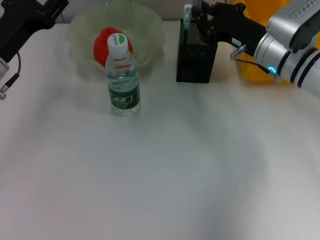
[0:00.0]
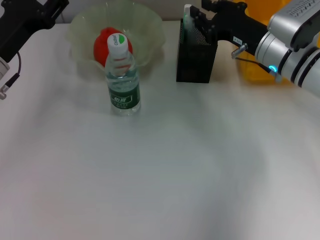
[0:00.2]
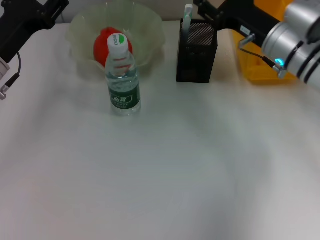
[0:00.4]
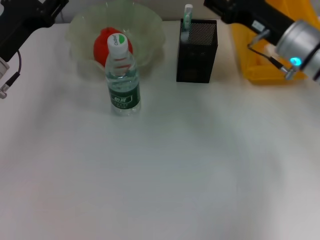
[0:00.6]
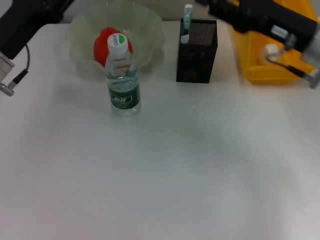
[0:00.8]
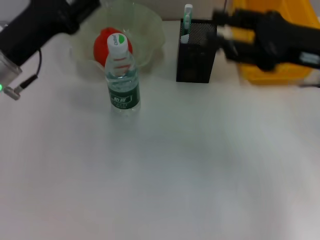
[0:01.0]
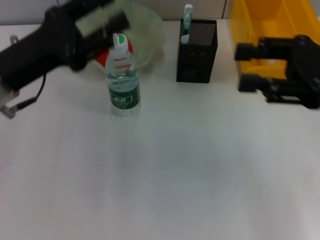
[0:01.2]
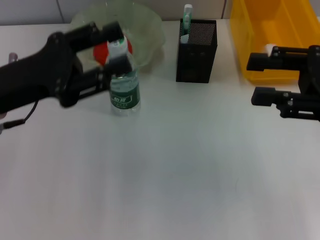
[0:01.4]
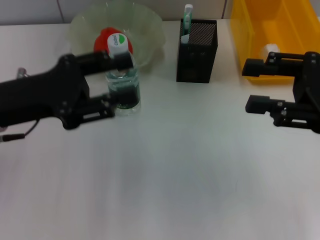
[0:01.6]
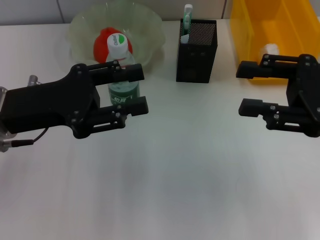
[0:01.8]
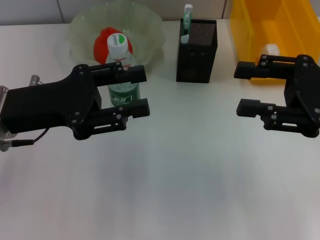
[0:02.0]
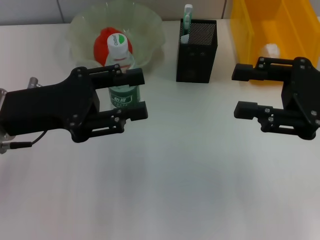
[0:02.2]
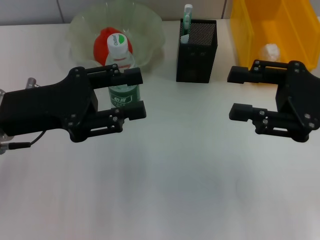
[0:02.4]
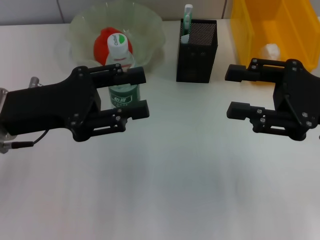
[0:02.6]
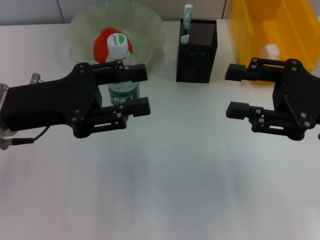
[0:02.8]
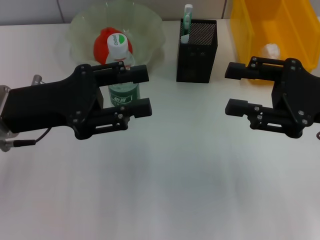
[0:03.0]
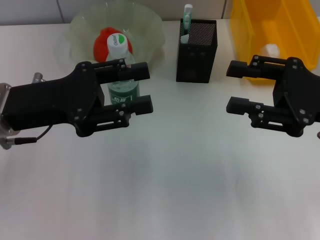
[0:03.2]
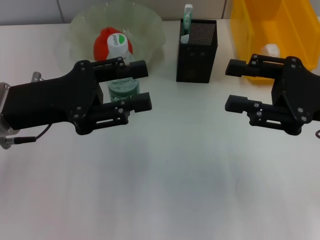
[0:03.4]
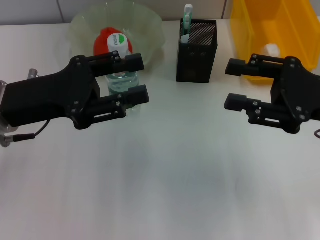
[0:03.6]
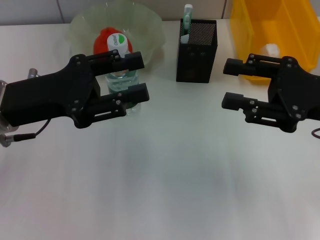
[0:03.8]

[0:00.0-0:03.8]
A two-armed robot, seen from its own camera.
0:00.0 to 0:01.2: The left gripper shifts by approximately 5 cm; the right gripper shifts some 15 cm backward, upward and to the right, and opens.
0:02.6 to 0:03.8: Neither gripper changes place.

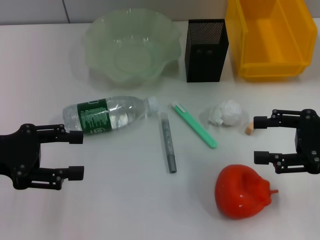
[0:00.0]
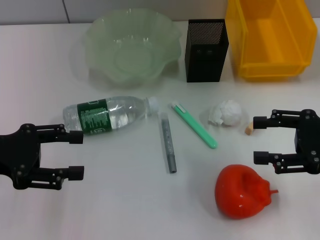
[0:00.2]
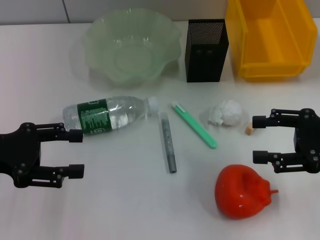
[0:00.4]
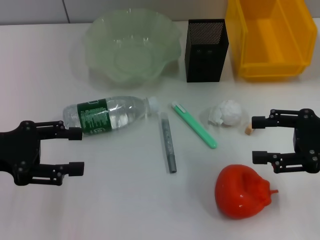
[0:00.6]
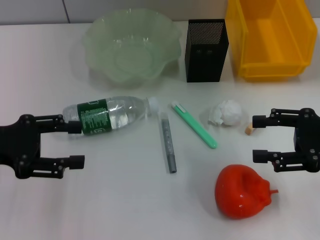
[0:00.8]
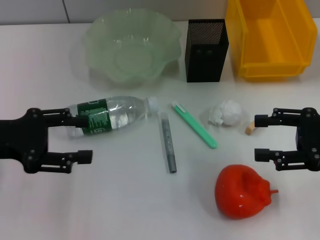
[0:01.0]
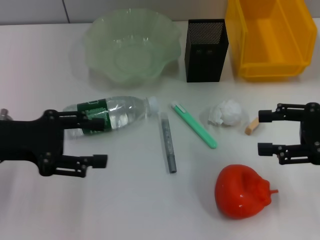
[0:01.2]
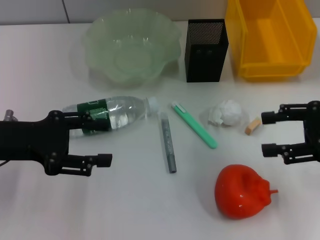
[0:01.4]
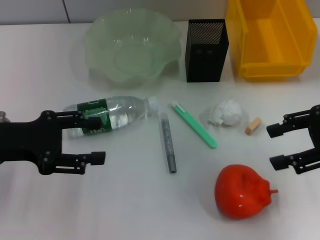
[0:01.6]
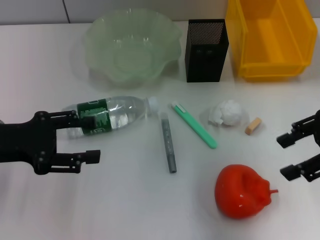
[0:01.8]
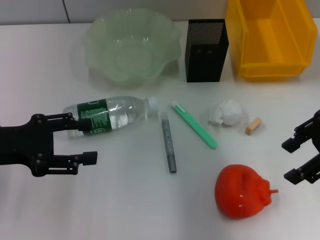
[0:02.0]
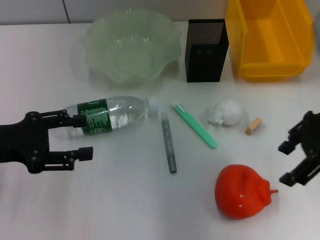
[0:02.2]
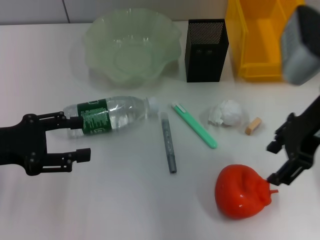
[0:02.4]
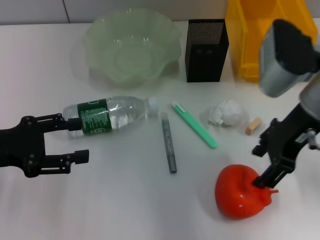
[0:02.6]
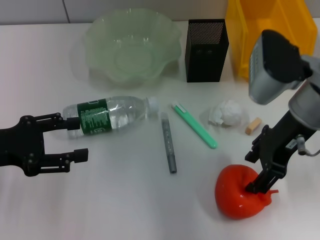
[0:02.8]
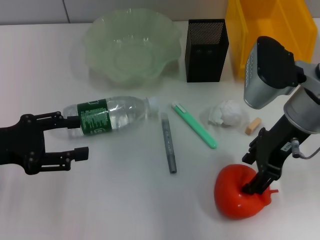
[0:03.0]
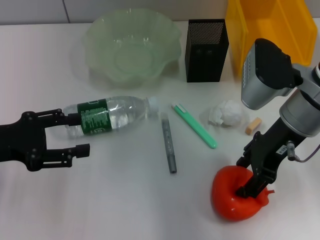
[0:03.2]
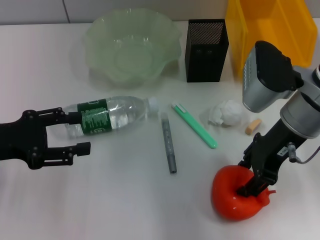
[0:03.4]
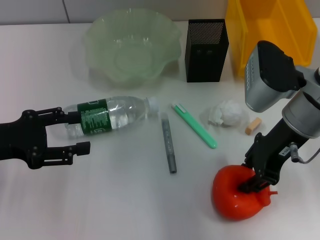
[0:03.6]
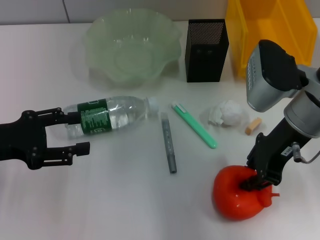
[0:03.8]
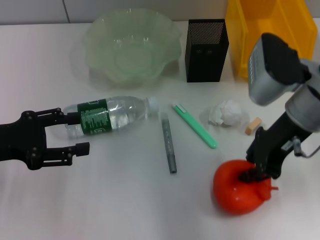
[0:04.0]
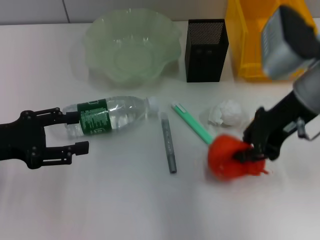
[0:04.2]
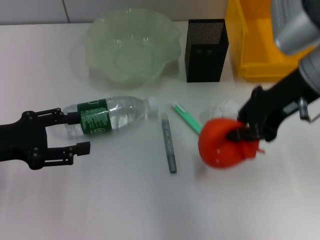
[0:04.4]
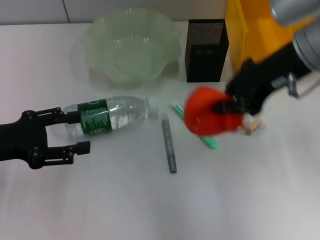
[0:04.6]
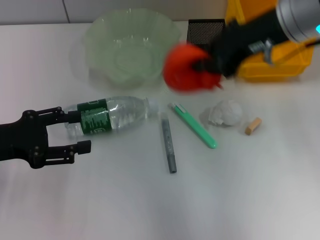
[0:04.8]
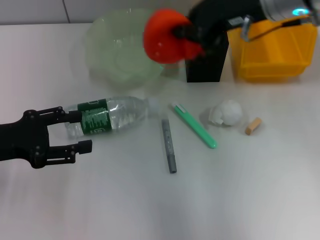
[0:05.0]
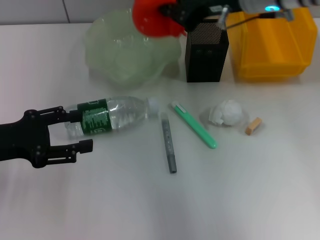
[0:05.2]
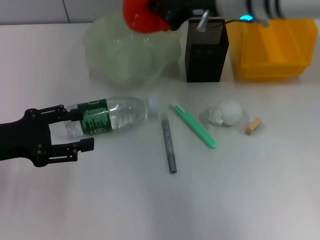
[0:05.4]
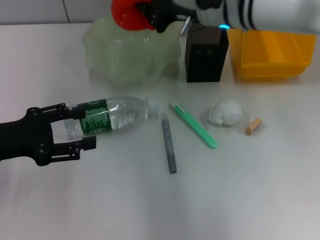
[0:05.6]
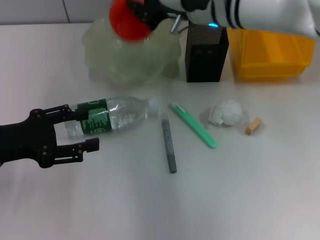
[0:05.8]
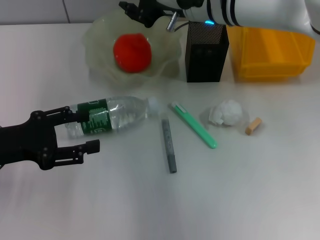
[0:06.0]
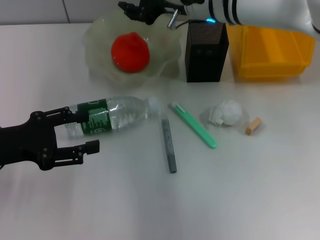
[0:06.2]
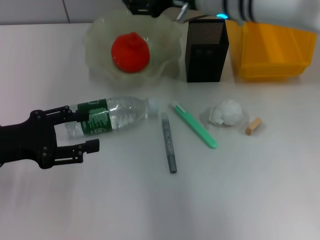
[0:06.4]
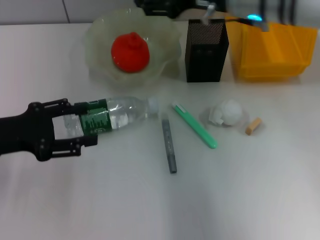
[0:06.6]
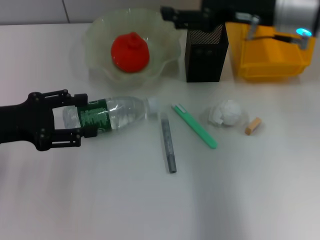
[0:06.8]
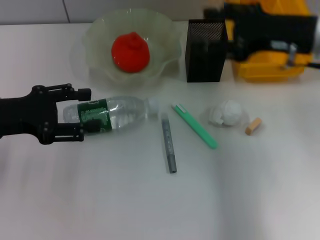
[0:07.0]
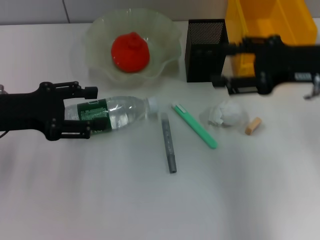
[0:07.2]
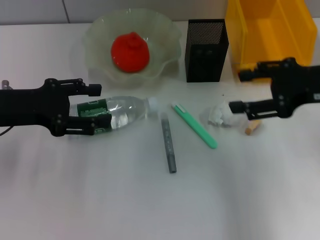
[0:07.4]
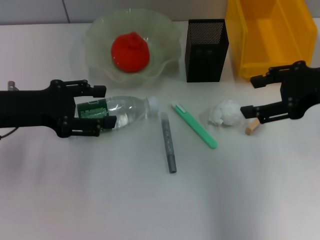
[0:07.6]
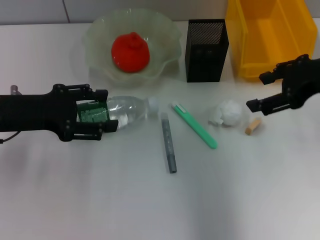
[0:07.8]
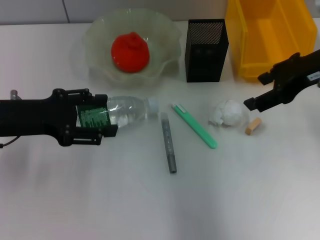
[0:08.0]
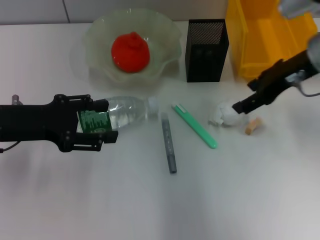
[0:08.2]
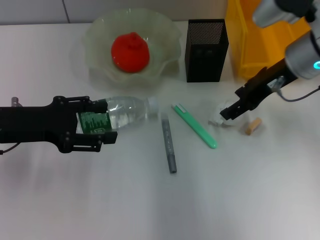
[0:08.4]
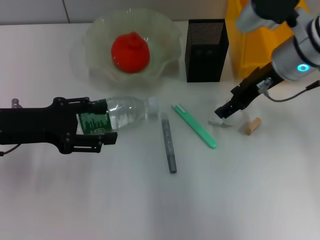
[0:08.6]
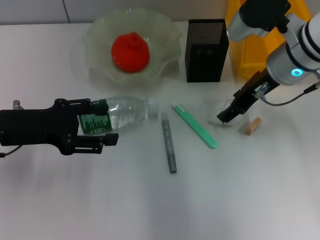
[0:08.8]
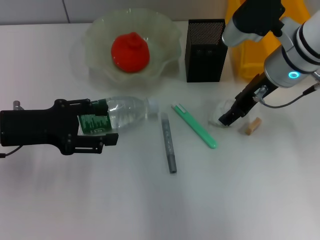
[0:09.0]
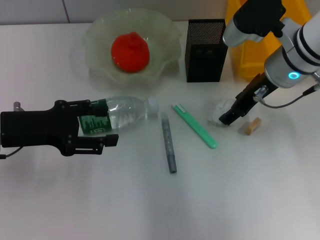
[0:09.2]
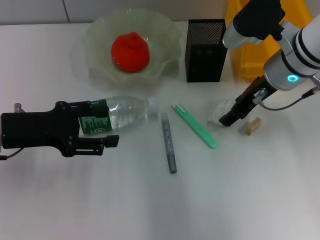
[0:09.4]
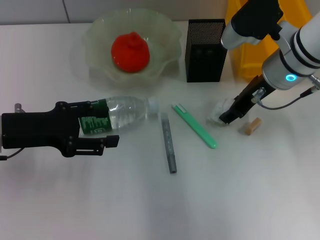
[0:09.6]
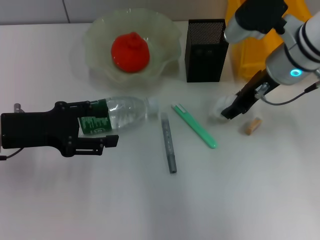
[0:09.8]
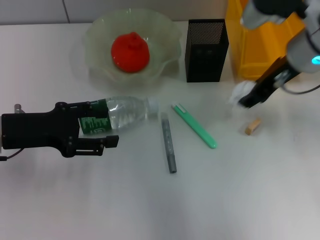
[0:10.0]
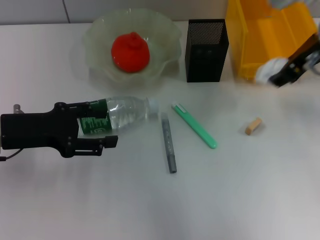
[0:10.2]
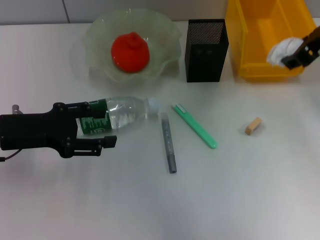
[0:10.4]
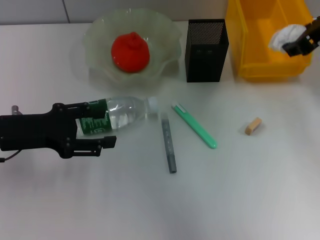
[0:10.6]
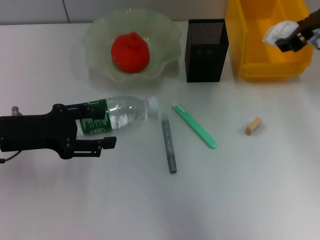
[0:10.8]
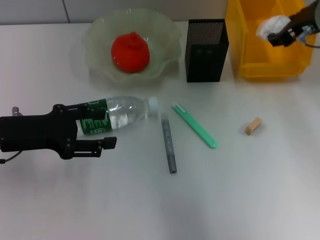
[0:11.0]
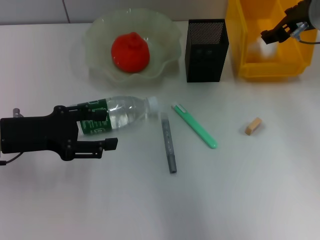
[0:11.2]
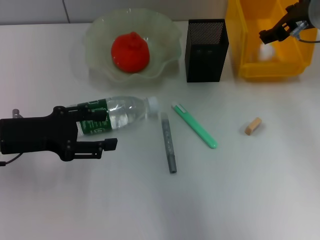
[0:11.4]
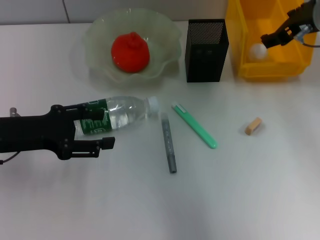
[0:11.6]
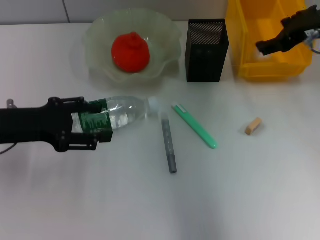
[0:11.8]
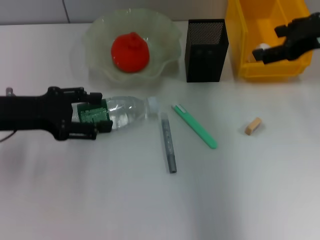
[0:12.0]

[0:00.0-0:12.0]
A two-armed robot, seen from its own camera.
Step, 0:00.0 to 0:03.8: Grab the orange with the right hand.
Step, 0:04.0 to 0:06.2: Place the orange into the fruit bowl with the right hand.
Step, 0:06.6 to 0:09.2: Grab the paper ball with the right hand.
Step, 0:09.6 to 0:11.6: Place the paper ball into the trash can with the right hand.
0:00.0 to 0:01.6: The right gripper travels upward by about 5 cm.
0:01.6 to 0:03.0: The right gripper travels to the left by approximately 15 cm.
0:03.0 to 0:04.4: The right gripper is displaced upward by approximately 5 cm, and closes its fingers.
0:04.4 to 0:06.0: The right gripper heads to the left and forward, covering about 15 cm.
0:06.0 to 0:07.6: The left gripper moves some 5 cm. Meanwhile the right gripper travels to the right and backward by about 25 cm, and opens its fingers.
0:07.6 to 0:09.0: The right gripper moves to the left and forward, some 15 cm.
0:09.0 to 0:10.4: The right gripper travels upward by roughly 10 cm.
0:10.4 to 0:12.0: The right gripper changes place by about 5 cm, and opens its fingers.

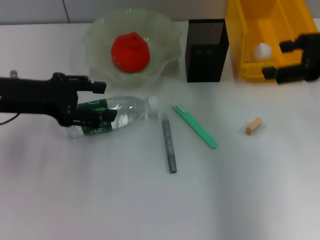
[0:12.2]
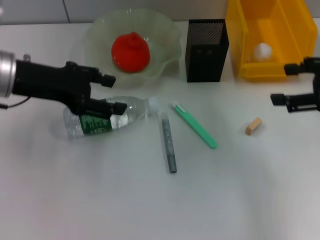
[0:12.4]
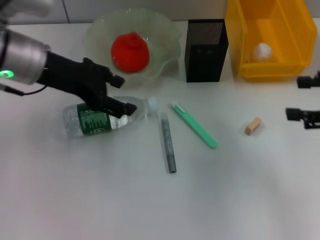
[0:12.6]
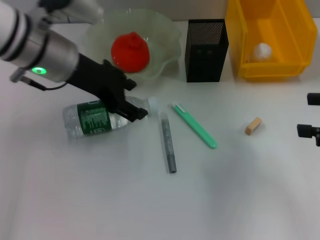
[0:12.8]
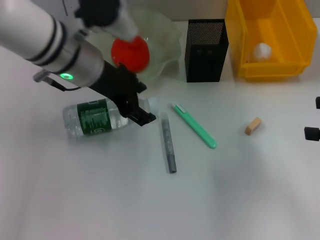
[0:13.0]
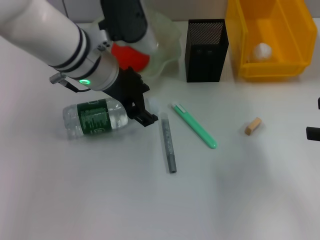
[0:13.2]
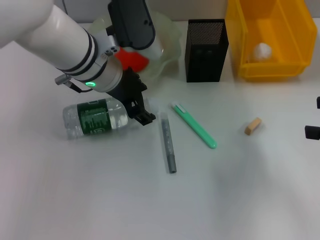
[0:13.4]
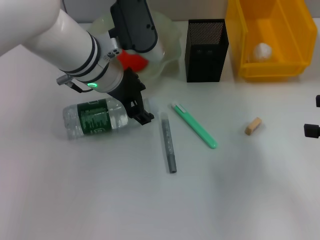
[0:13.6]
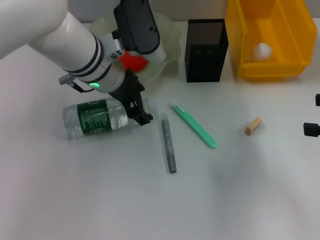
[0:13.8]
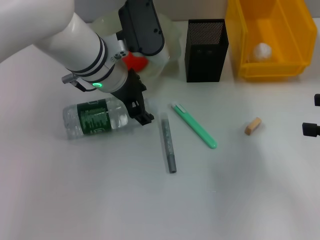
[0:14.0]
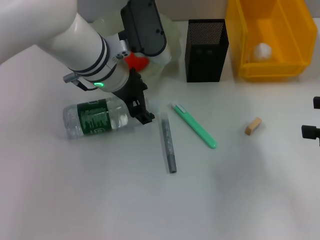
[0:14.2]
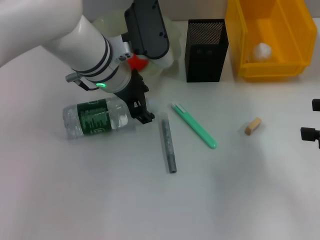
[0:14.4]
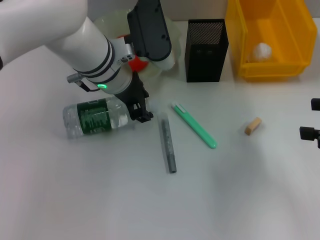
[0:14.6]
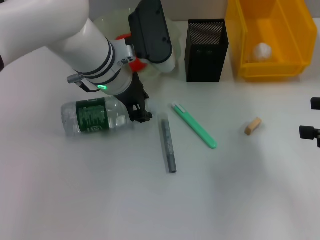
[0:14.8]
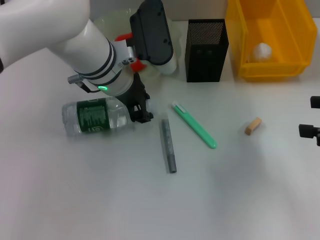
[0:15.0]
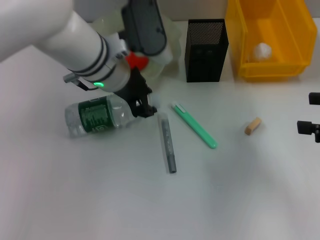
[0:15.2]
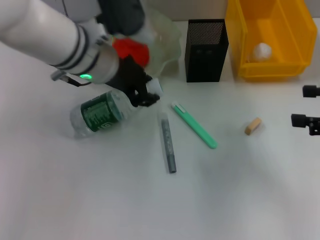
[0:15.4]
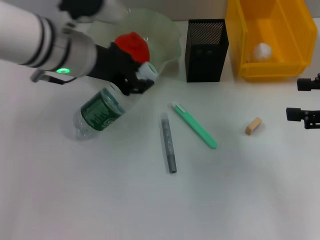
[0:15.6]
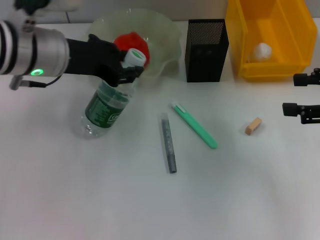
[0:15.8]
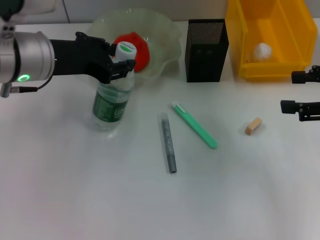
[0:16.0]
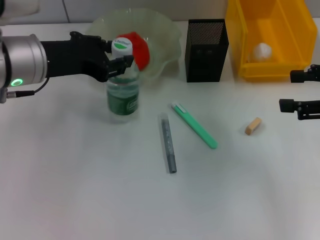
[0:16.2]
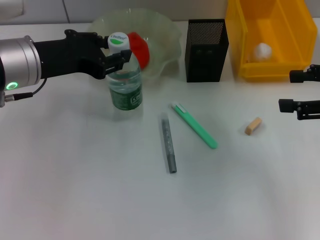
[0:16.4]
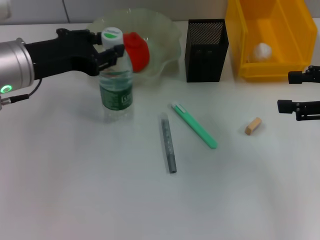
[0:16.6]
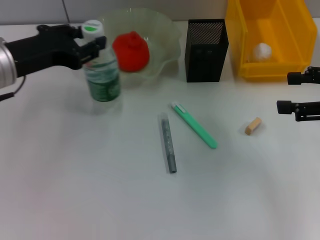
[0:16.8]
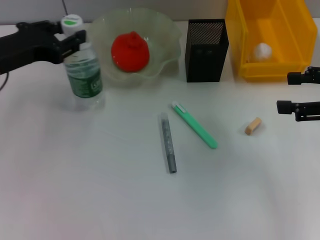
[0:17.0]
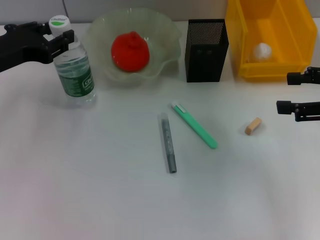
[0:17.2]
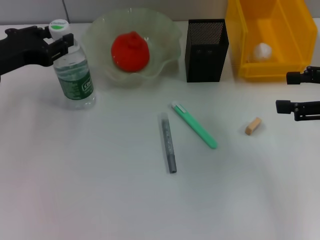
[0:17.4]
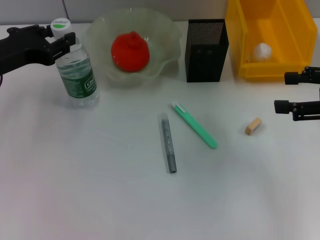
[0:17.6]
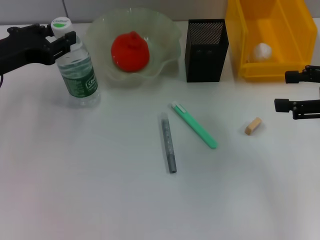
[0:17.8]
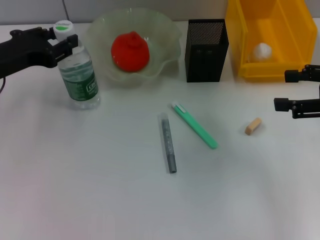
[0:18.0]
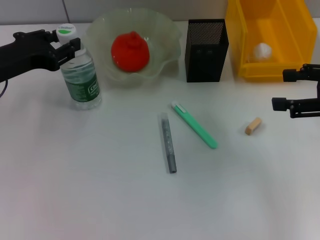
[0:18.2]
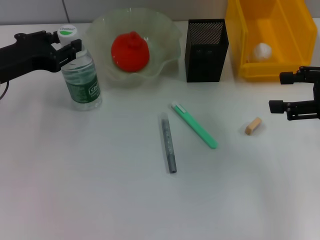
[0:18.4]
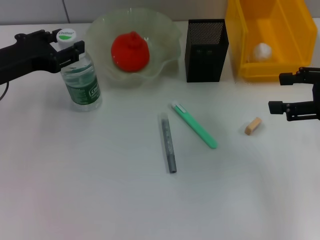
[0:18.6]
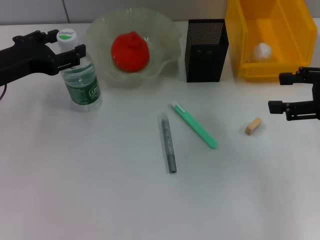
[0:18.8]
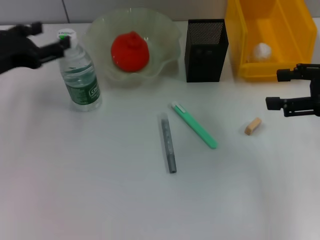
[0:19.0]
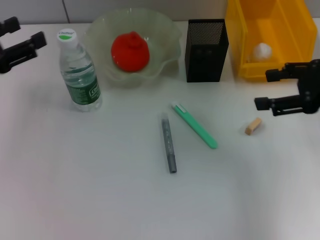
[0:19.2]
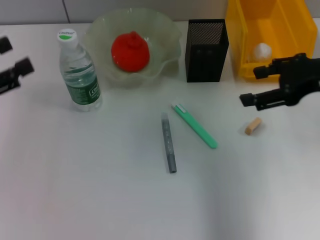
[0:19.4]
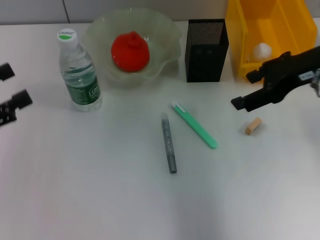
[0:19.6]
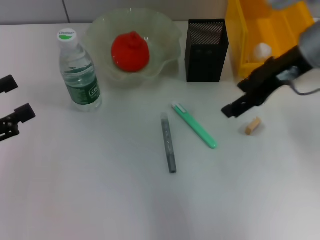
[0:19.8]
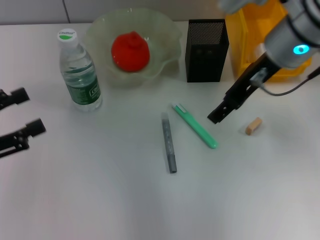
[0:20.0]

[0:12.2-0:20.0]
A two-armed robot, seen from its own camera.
Step, 0:12.2 to 0:14.6: Grab the water bottle with the left hand.
Step, 0:14.8 to 0:18.6: Place the water bottle on the table with the left hand.
0:12.2 to 0:13.8: The left gripper is displaced to the right by some 15 cm. The right gripper is displaced backward and to the right by roughly 10 cm.
0:13.8 to 0:15.4: The left gripper closes.
0:15.4 to 0:16.8: The left gripper heads to the left and backward, covering approximately 15 cm.
0:16.8 to 0:18.4: The grippers stay close to where they were, moving slightly.
0:18.4 to 0:20.0: The left gripper goes roughly 15 cm backward and to the left, and opens its fingers; the right gripper heads to the left and forward, covering approximately 20 cm.
